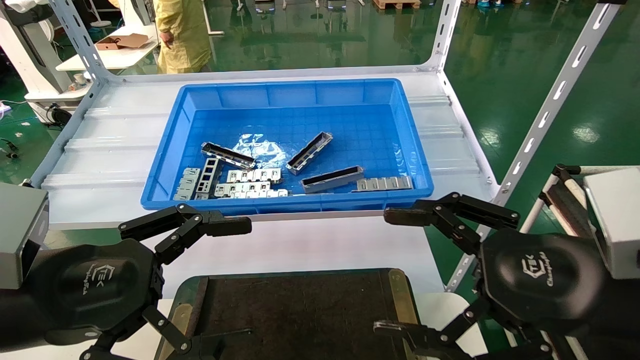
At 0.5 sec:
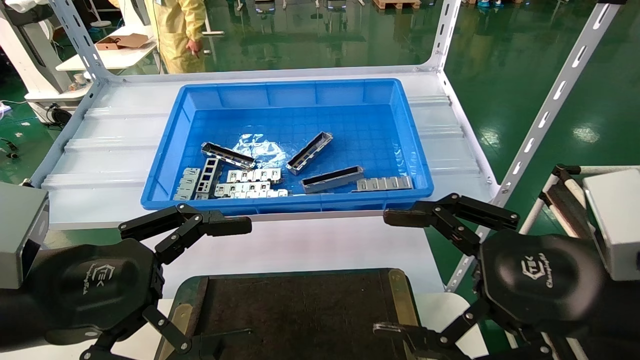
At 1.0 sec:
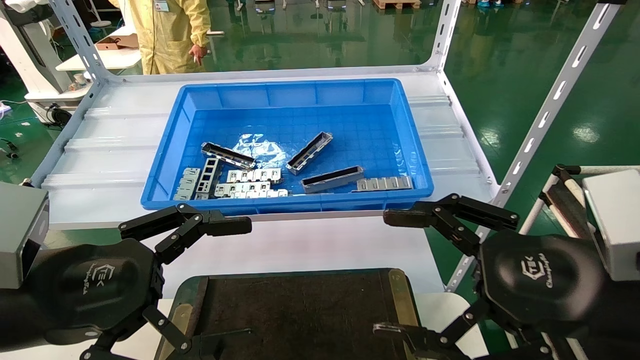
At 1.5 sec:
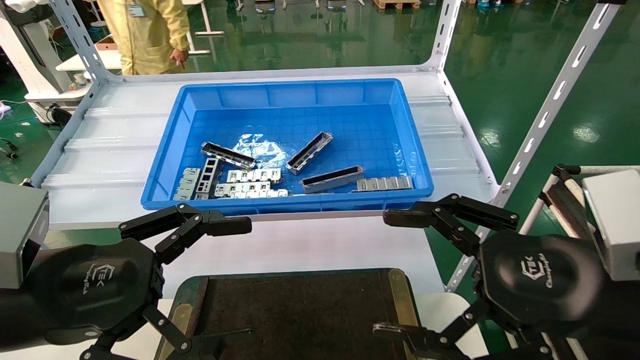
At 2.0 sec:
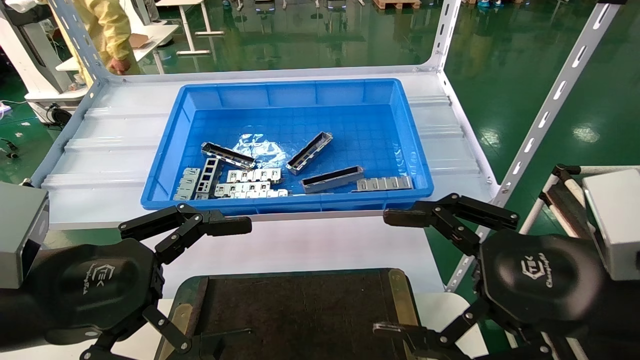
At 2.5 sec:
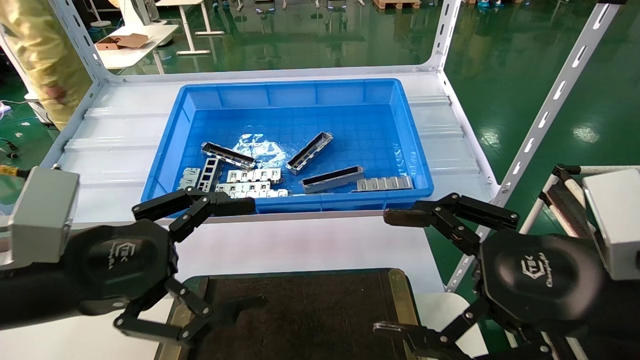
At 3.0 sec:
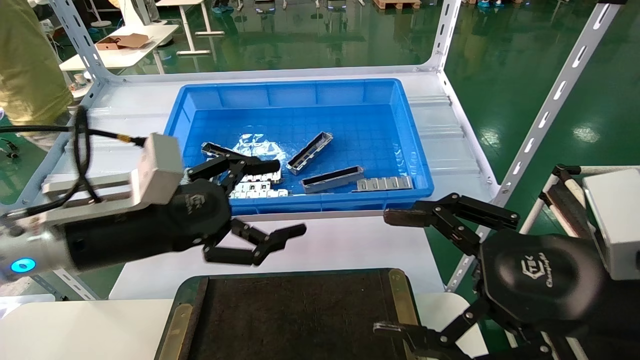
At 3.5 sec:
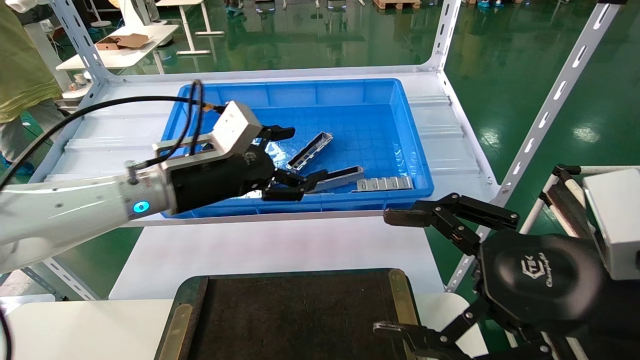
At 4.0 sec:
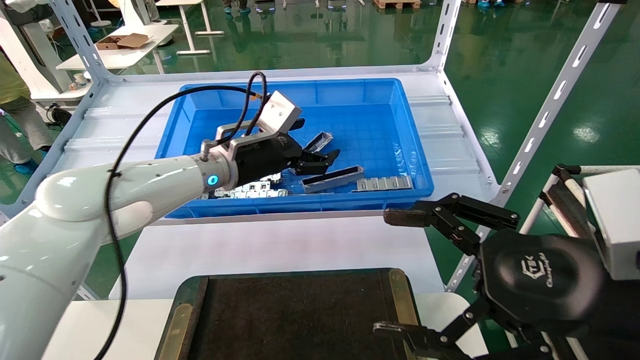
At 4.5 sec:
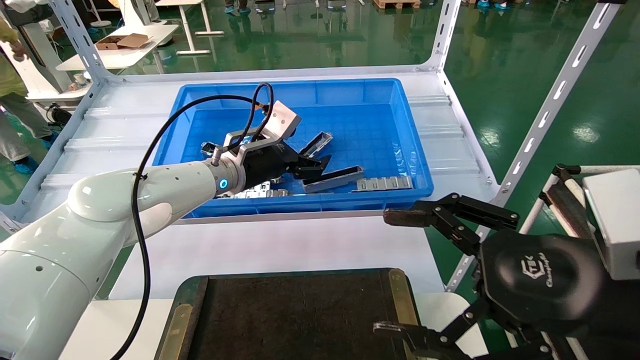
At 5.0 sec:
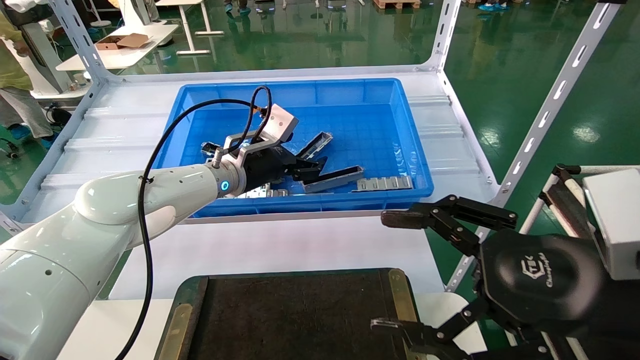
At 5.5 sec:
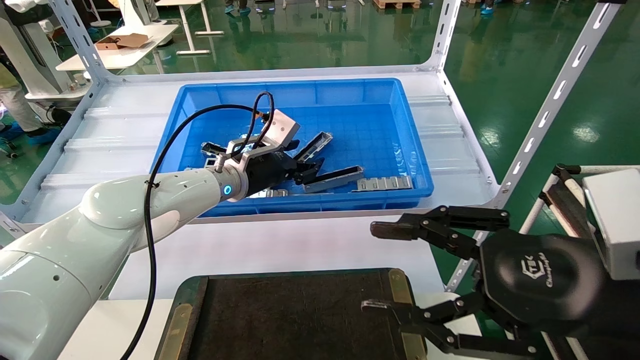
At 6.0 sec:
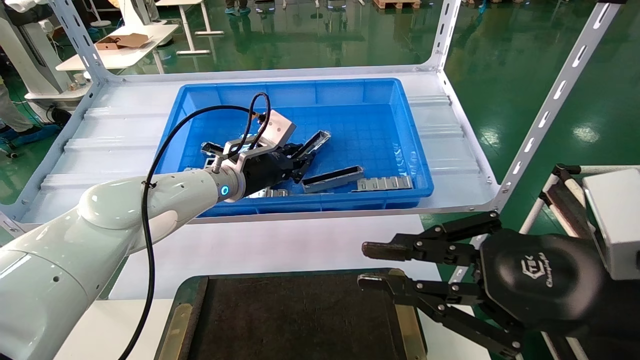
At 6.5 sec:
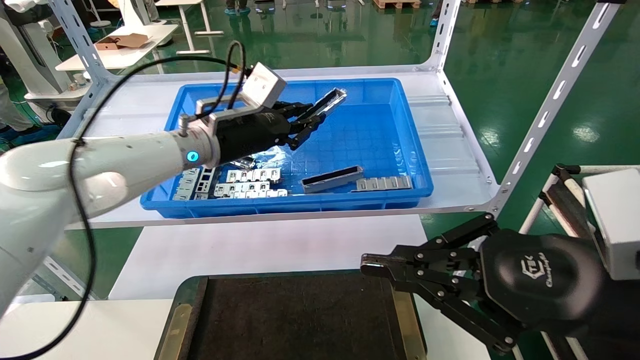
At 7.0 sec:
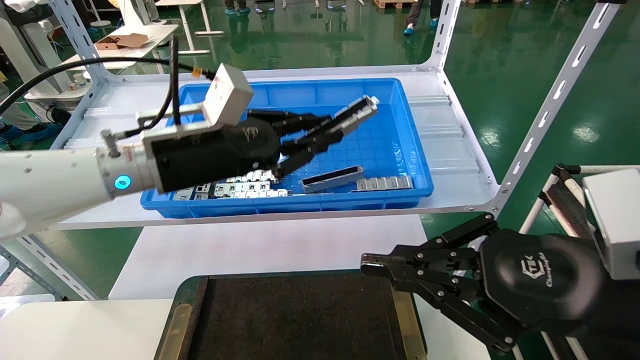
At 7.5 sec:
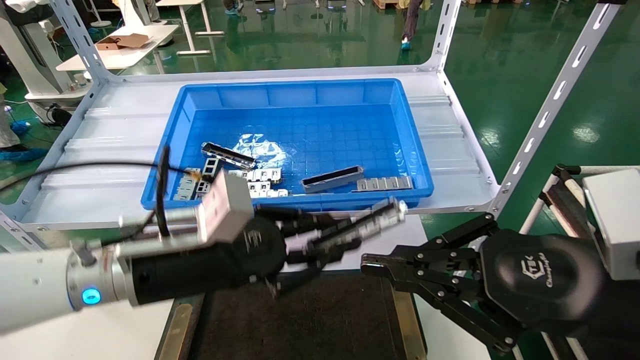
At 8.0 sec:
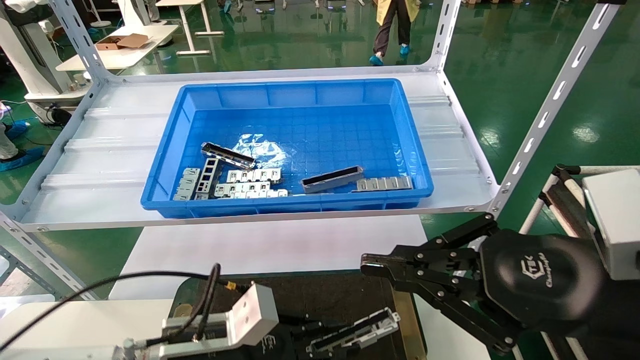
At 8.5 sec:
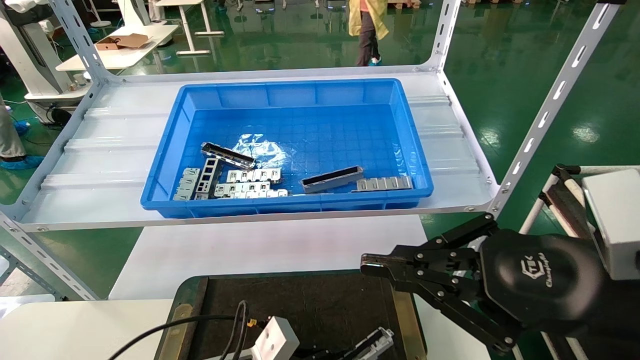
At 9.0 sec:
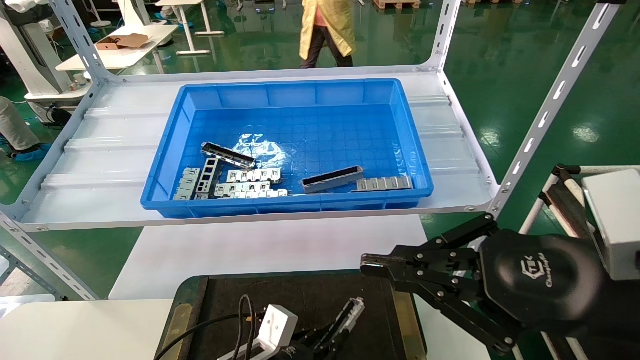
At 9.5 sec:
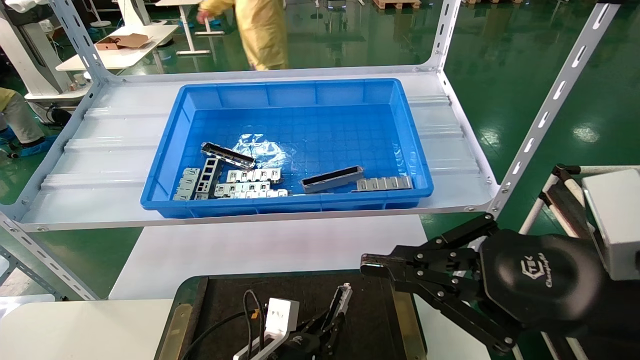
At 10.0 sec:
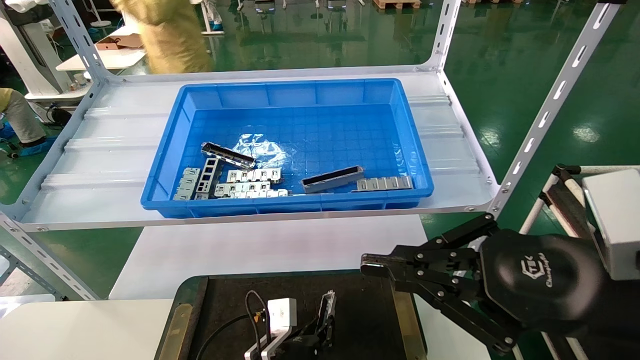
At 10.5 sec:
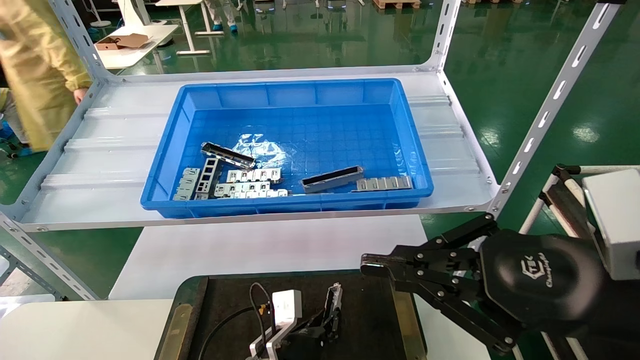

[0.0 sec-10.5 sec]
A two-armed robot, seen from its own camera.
Task of the whole recording: Grasp the part with one hand and place it on the black container.
Step, 2.5 sec to 5.5 sec: Pick up the front USB bracket from the feeding area.
0.0 sec to 2.0 sec: Both grippers stay put.
2.0 sec to 4.0 sec: The left gripper is displaced forward and to the right by approximately 30 cm.
4.0 sec to 6.5 sec: The right gripper closes up; the left gripper closes up.
6.5 sec to 8.5 sec: The left gripper shifts about 35 cm downward and backward.
8.5 sec to 10.5 sec: The left gripper is displaced to the right and forward by some 10 cm.

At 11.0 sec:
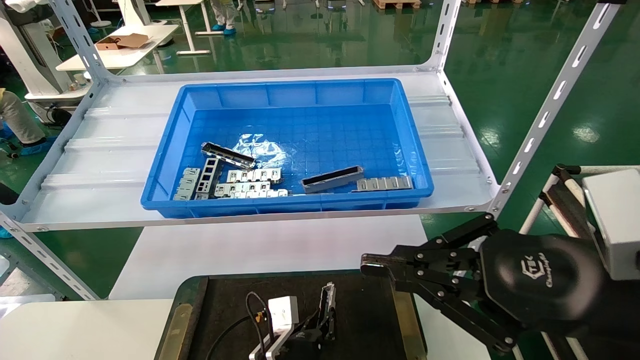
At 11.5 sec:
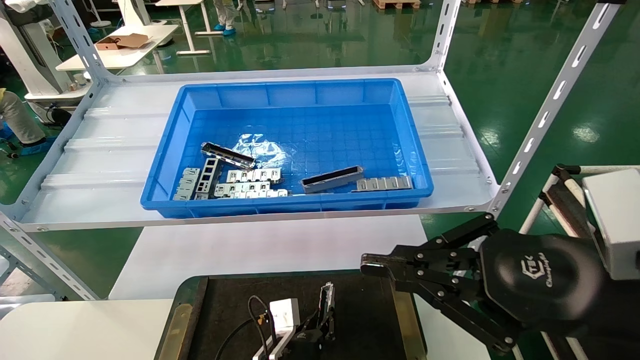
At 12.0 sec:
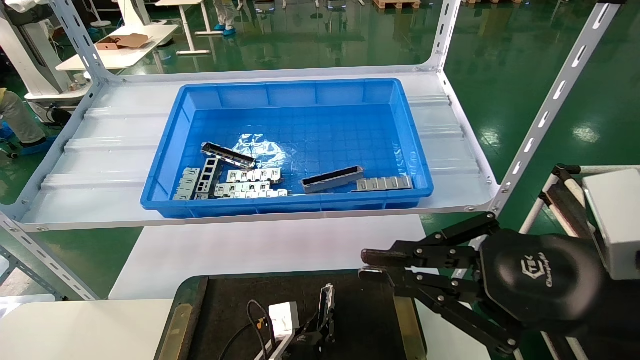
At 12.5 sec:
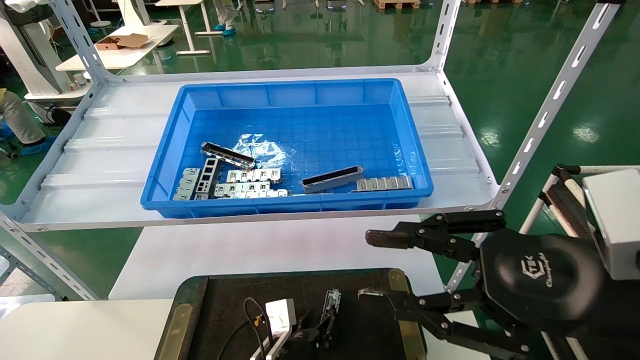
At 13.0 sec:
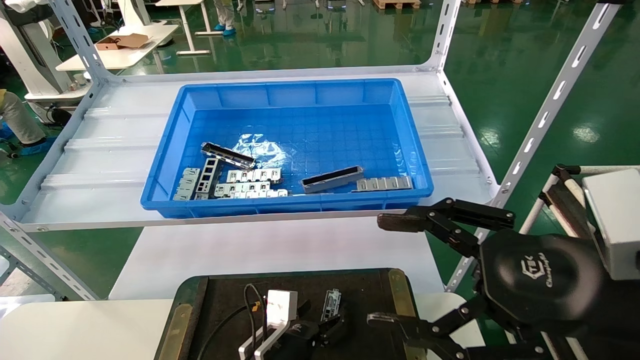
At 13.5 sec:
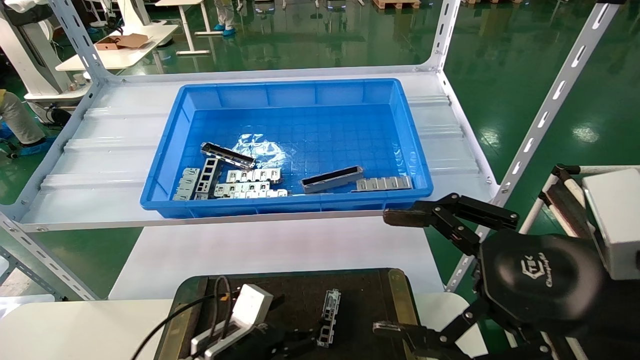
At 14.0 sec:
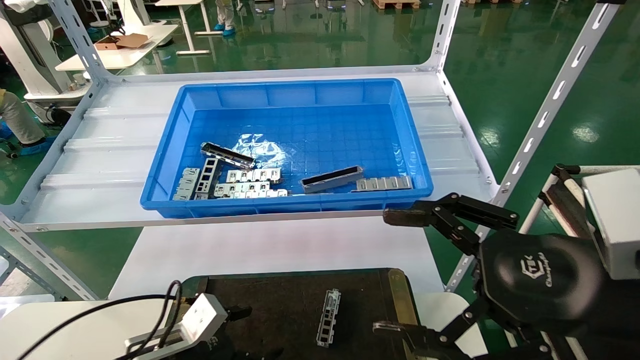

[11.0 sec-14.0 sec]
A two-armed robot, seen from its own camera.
Task of the whole recording: Grasp the part with one hand and place it on the black container.
11.0 sec to 12.5 sec: There are only small adjustments of the grippers.
12.5 sec to 14.0 sec: The right gripper opens its fingers. Meanwhile the left gripper heads to the left and upward, covering about 20 cm, and opens up.

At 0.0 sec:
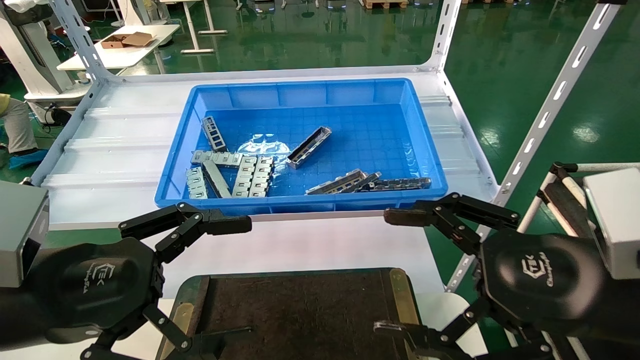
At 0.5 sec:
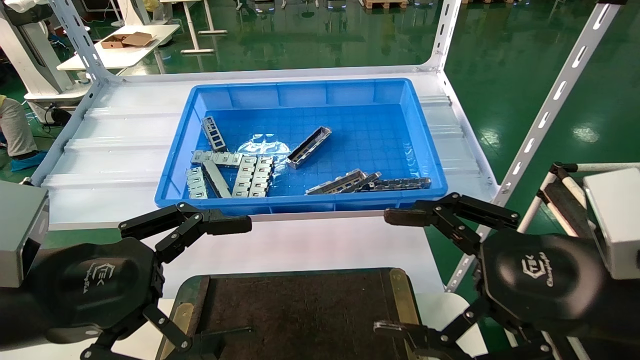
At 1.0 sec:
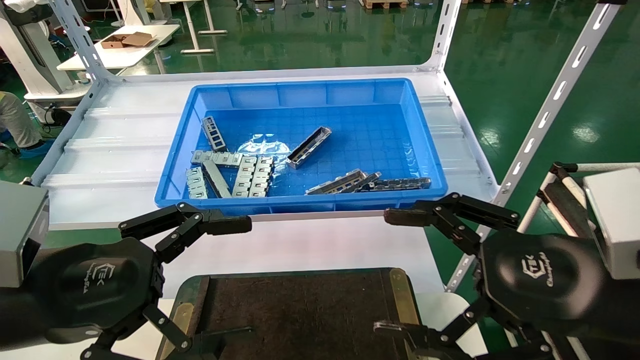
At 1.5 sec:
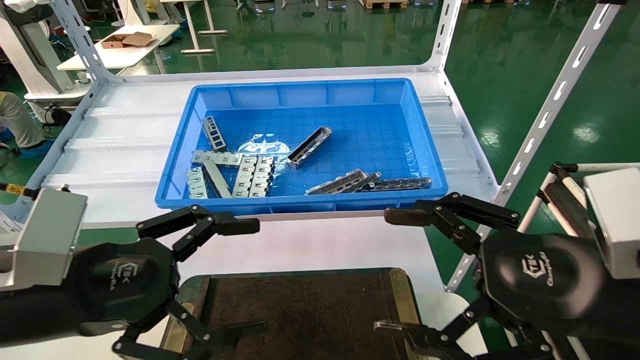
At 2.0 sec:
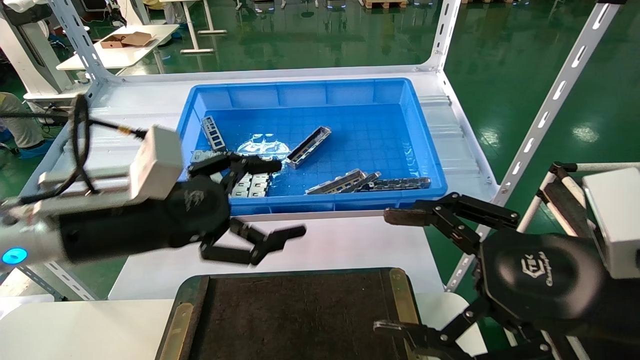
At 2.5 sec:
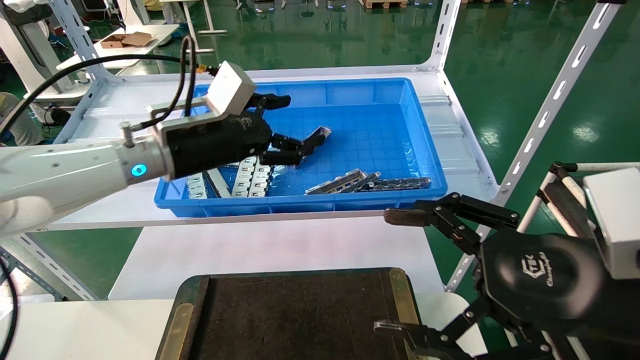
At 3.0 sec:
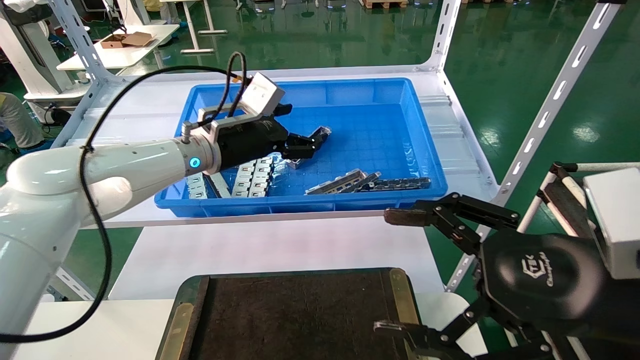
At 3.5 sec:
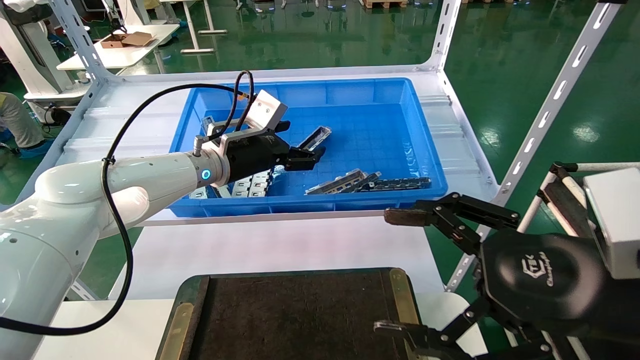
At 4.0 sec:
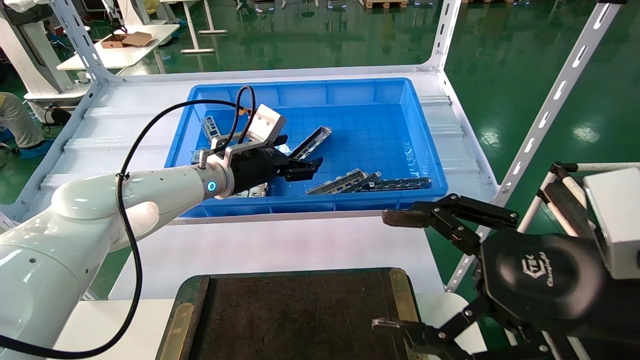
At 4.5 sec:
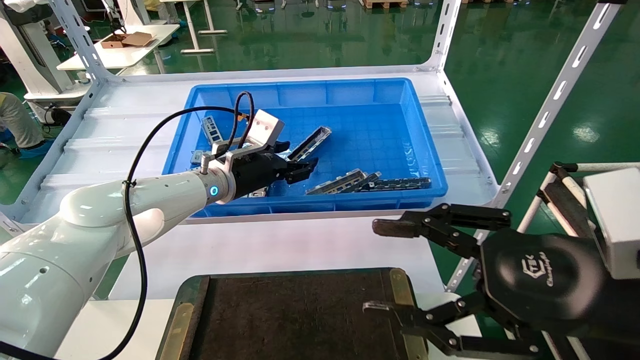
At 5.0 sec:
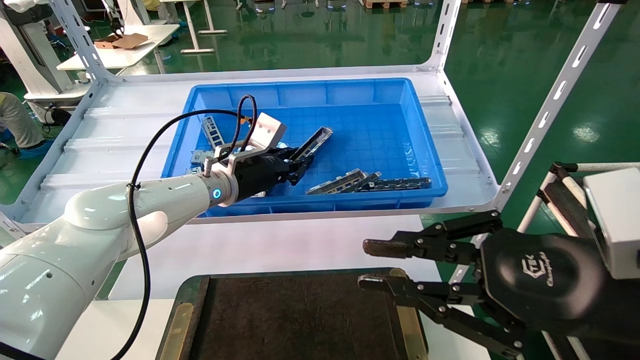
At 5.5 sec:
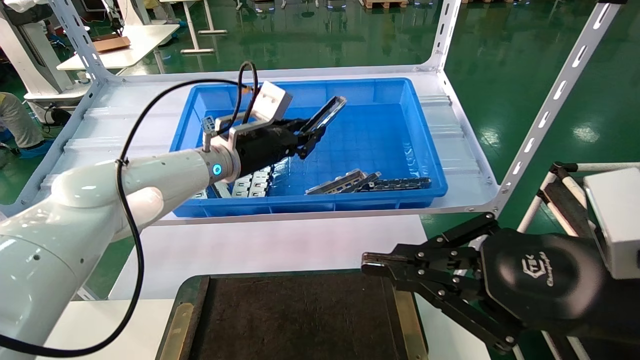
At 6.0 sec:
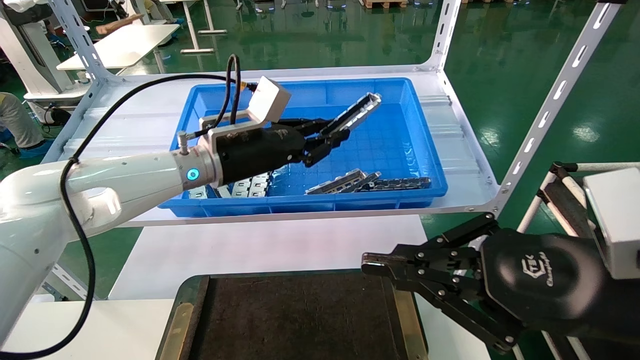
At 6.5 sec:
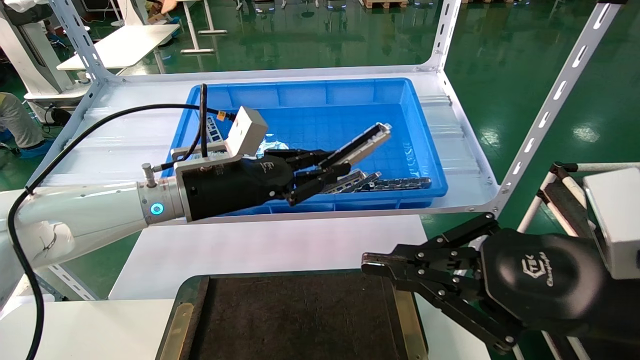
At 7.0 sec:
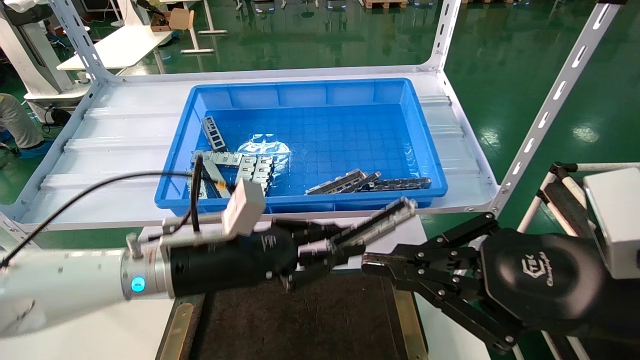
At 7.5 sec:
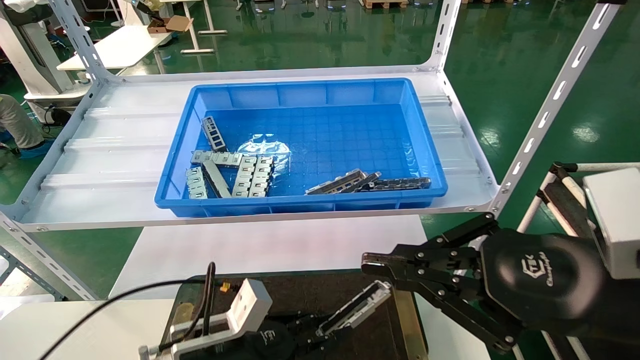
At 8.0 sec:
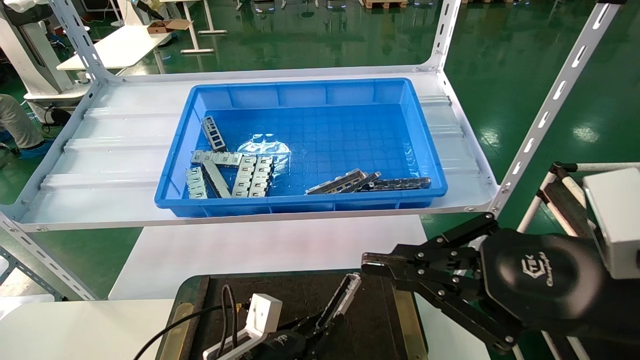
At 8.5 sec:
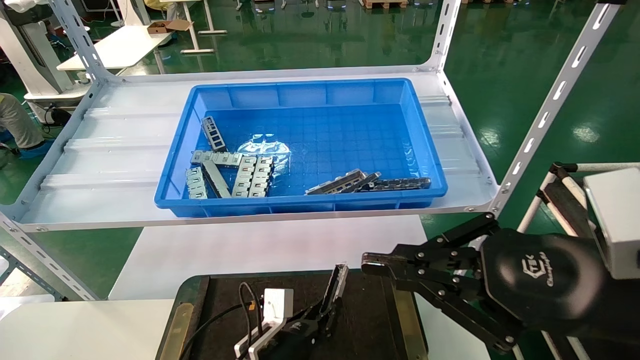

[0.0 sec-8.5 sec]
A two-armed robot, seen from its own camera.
Task of the whole recording: Grasp the part with one hand and place it on the black container.
Step, 2.0 sec to 5.5 sec: Pick up the front USB bracket from the feeding area.
0.0 sec to 2.0 sec: The left gripper heads forward, covering about 10 cm.
2.0 sec to 4.0 sec: The left gripper heads forward, covering approximately 20 cm.
4.0 sec to 6.5 sec: The left gripper moves backward, some 10 cm, and closes its fingers; the right gripper closes its fingers.
6.5 sec to 8.5 sec: The left gripper is displaced downward by approximately 30 cm.
